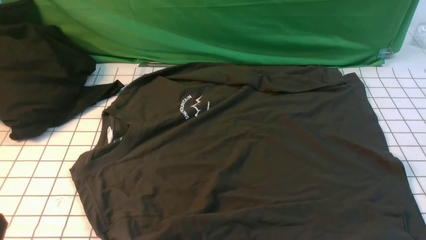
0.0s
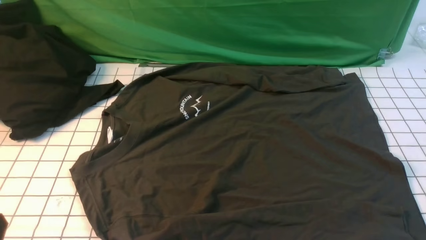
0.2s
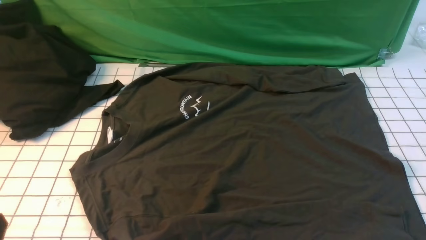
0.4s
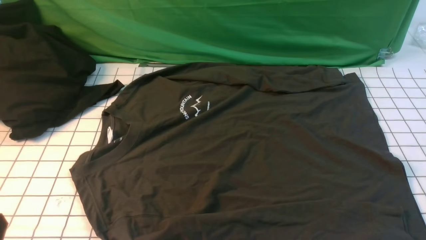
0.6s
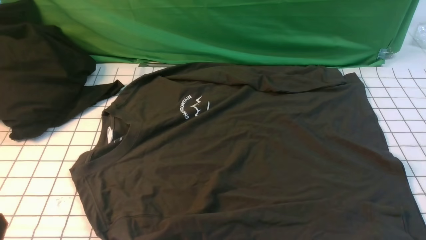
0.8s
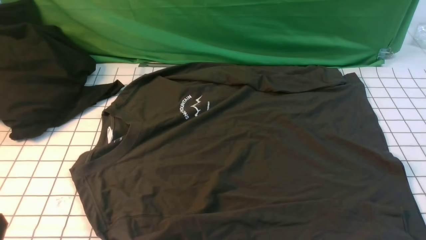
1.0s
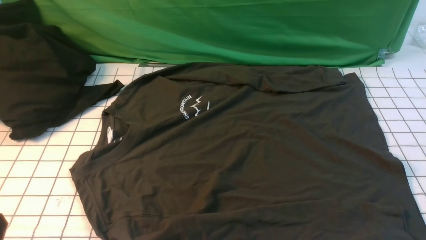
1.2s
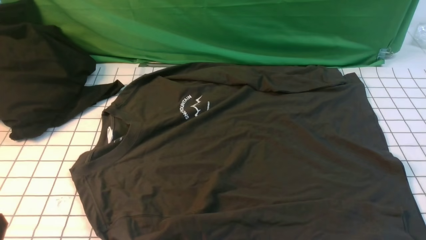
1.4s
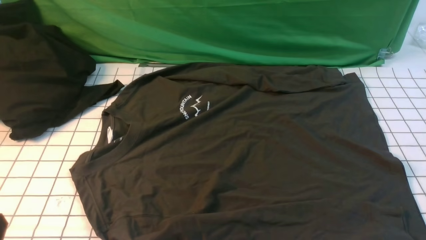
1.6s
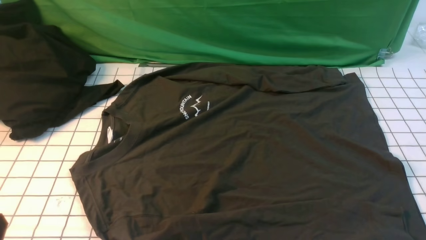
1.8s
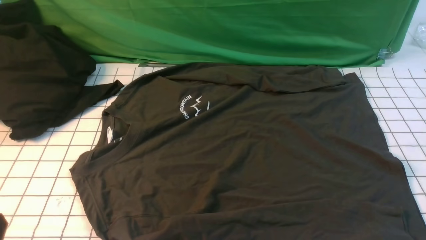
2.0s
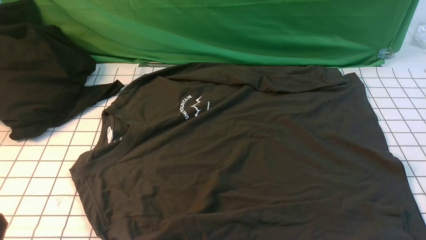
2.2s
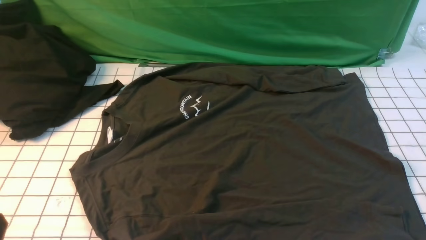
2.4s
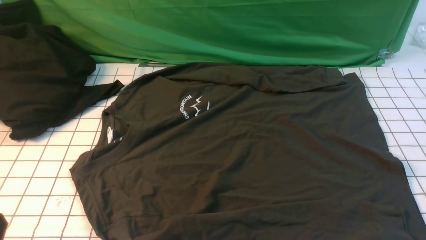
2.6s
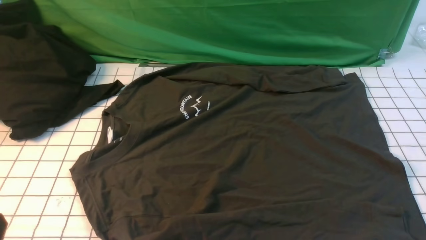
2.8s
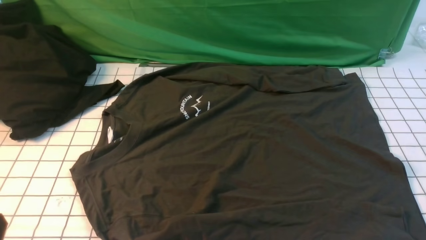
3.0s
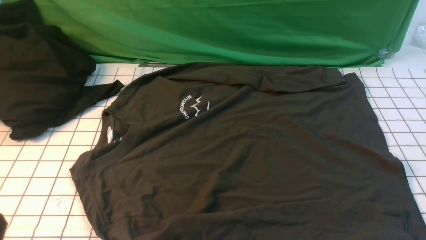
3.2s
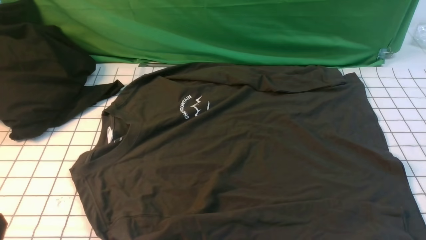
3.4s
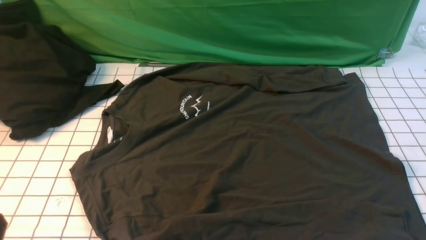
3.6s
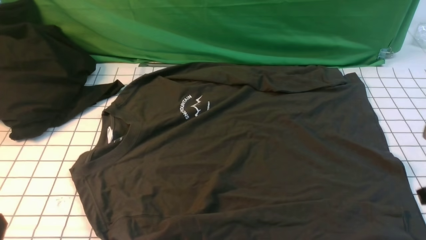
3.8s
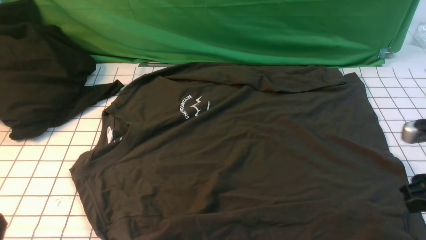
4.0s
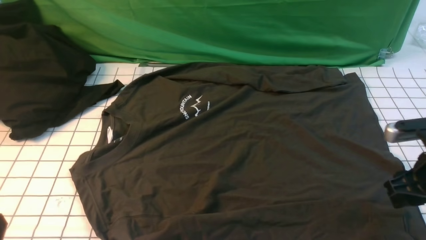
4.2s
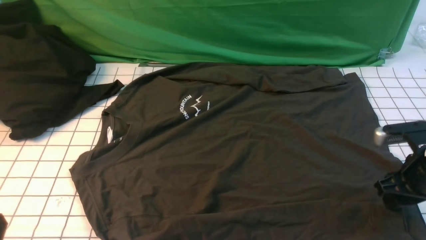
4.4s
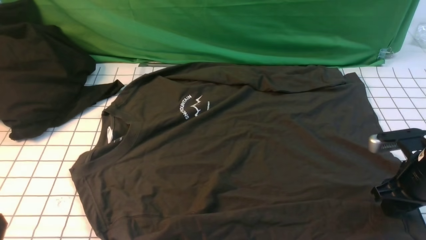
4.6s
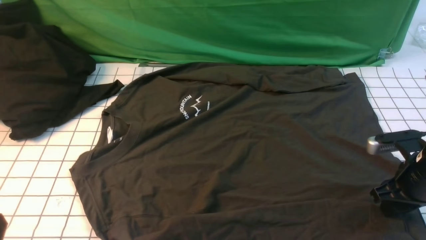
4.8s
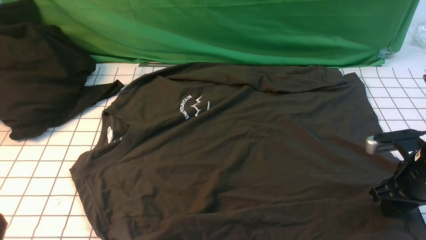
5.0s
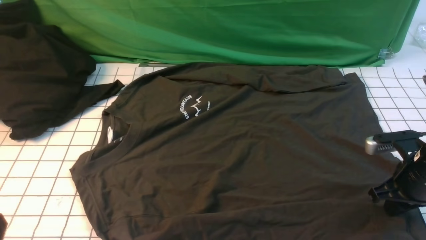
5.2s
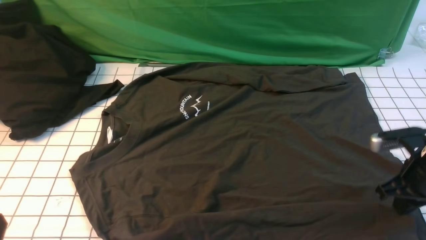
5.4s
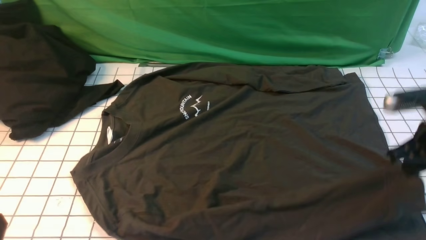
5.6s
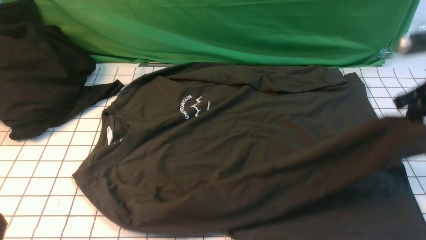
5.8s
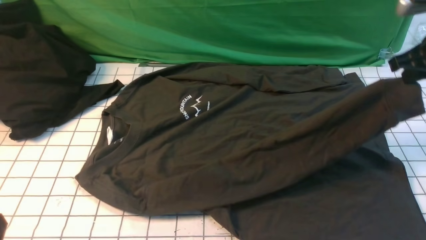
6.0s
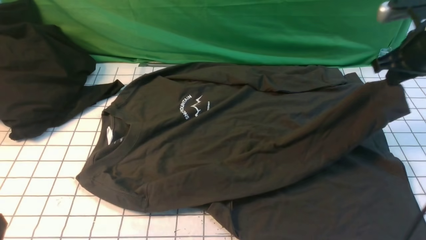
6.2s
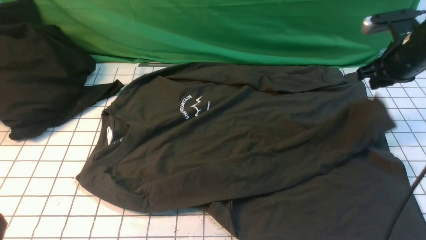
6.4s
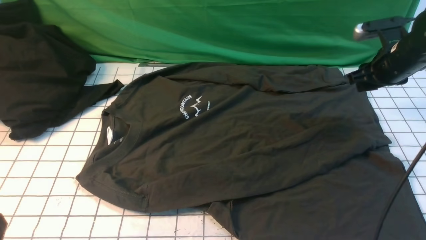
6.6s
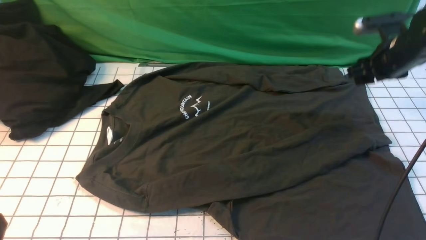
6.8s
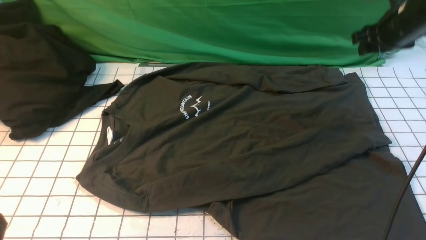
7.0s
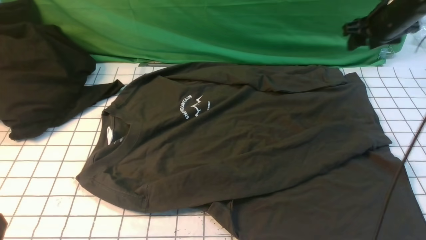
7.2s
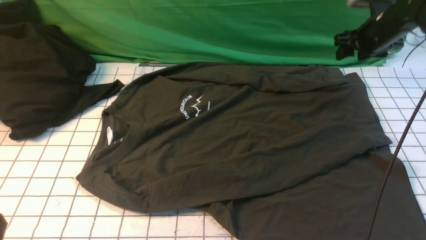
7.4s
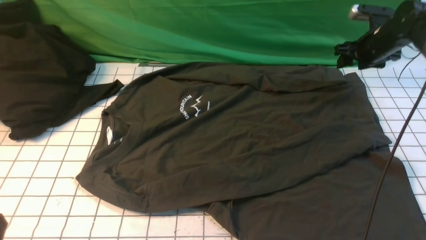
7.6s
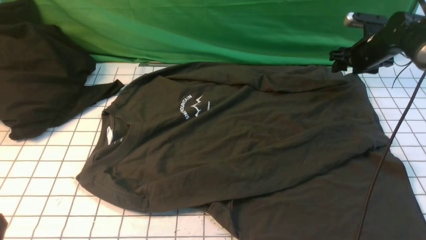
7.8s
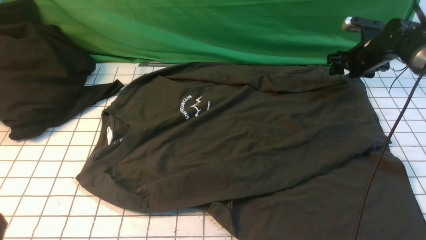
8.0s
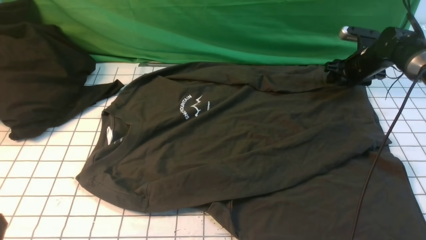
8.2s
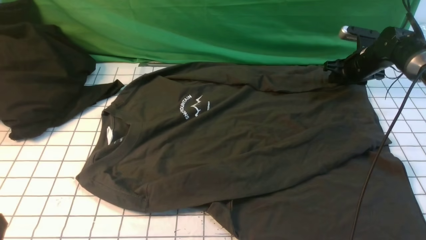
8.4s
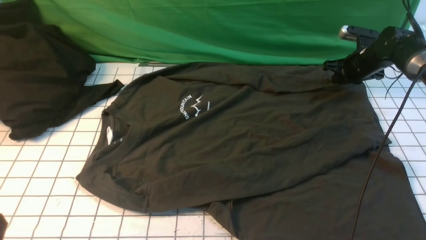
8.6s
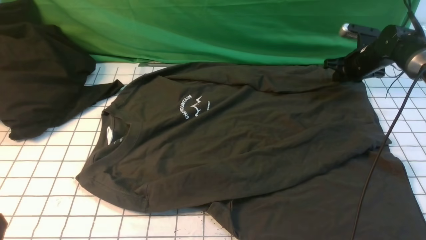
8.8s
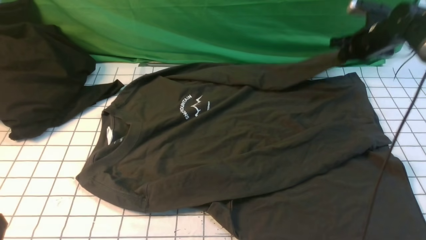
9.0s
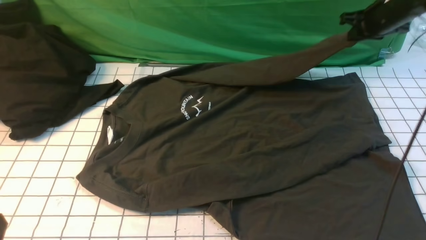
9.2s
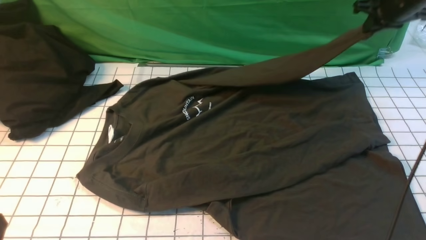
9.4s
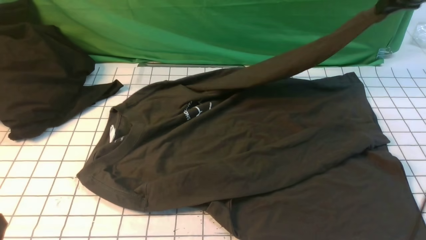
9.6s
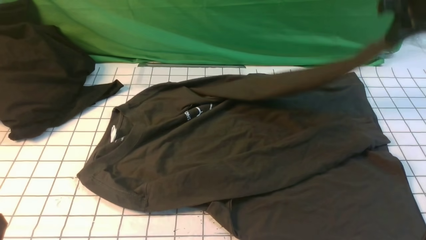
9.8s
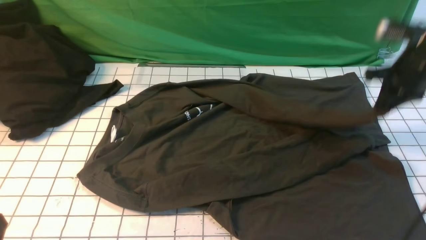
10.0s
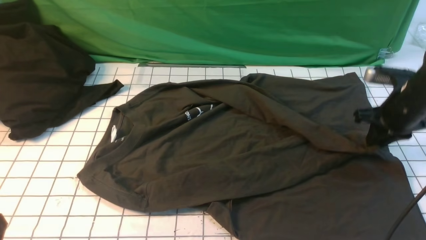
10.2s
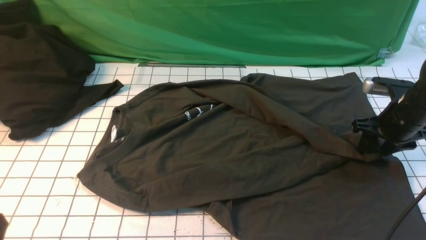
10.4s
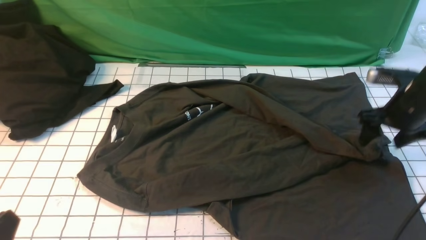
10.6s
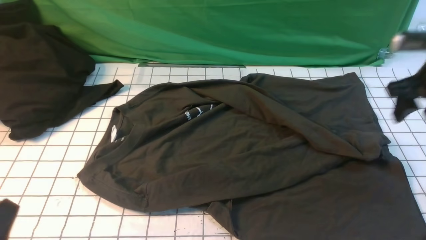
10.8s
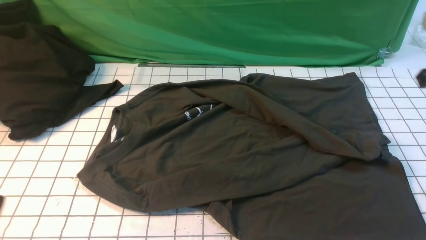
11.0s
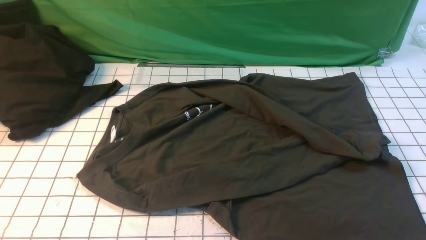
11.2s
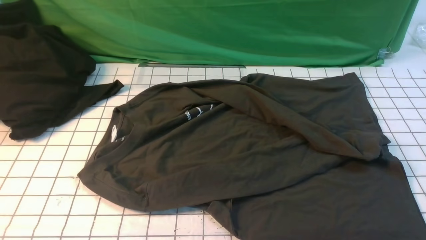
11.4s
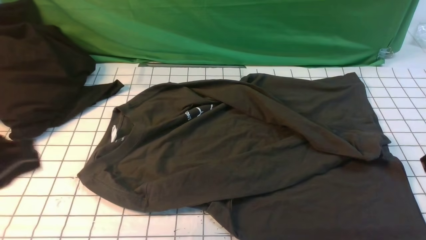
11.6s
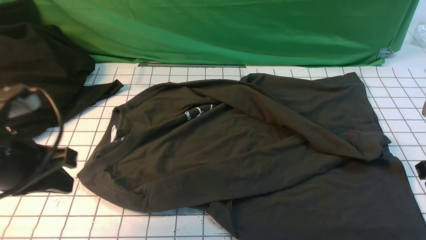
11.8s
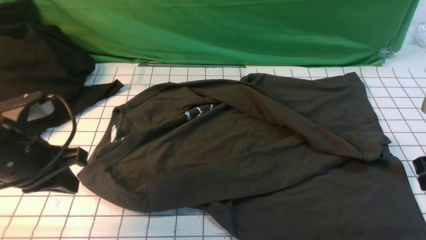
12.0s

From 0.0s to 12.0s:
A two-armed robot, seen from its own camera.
Step, from 0.0s to 5.2s: Use your right arm to clamp the cuff closest to him.
Step, from 5.4s to 6.4s: use the right arm to drag and place the cuff at thecentered position on the left edge of the fabric.
Step, from 6.6s to 8.6s: Use your right arm to clamp the cuff farthest to him.
Step, from 8.8s to 10.4s: use the right arm to drag and drop the cuff onto the cuffclosest to the right arm.
From 0.0s to 1.6s: Both grippers stay about where they are.
From 3.0s to 4.4s: The right gripper moves forward and downward, roughly 25 cm, and opens its fingers.
From 4.4s to 6.0s: The right gripper moves upward and forward, roughly 15 cm, and closes its fingers.
From 6.0s to 7.6s: The right gripper heads forward and downward, covering roughly 20 cm, and opens its fingers.
From 7.6s to 9.0s: The right gripper travels downward and back again, about 5 cm each way, and closes up.
From 9.0s to 10.4s: The right gripper is displaced backward by roughly 20 cm, and opens its fingers.
From 10.4s to 12.0s: The right gripper goes roughly 15 cm backward and upward, and closes and opens again, while the left gripper is displaced forward by some 20 cm.

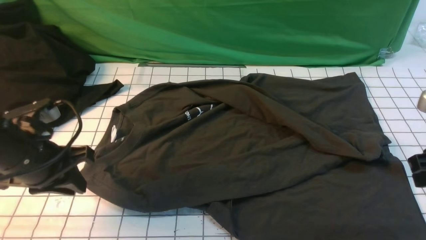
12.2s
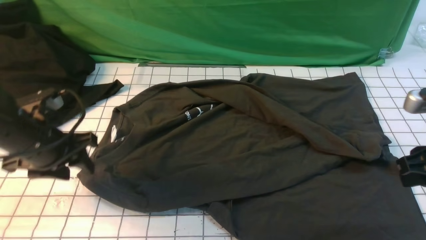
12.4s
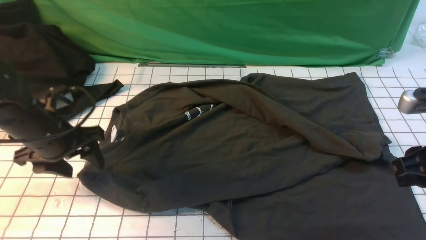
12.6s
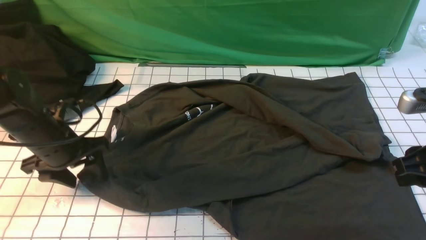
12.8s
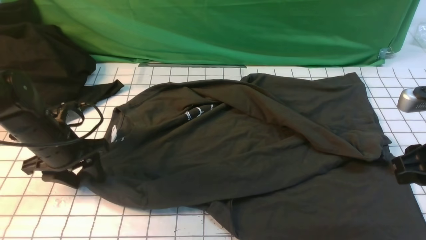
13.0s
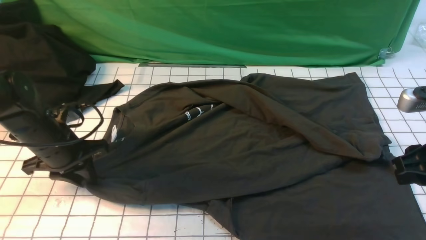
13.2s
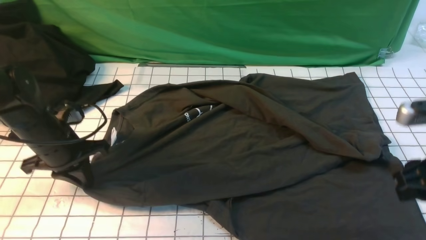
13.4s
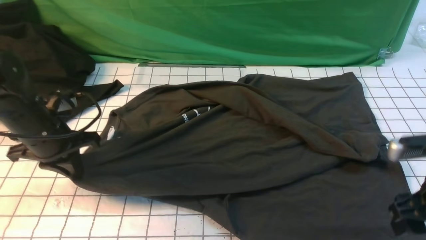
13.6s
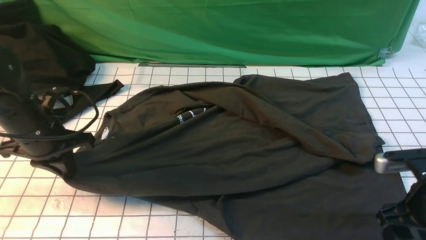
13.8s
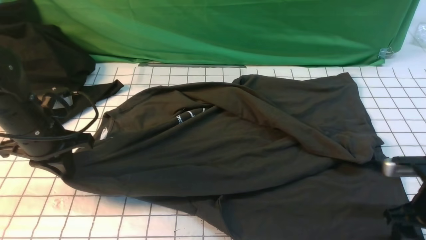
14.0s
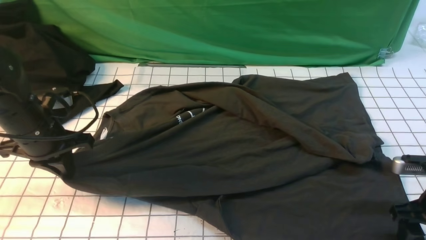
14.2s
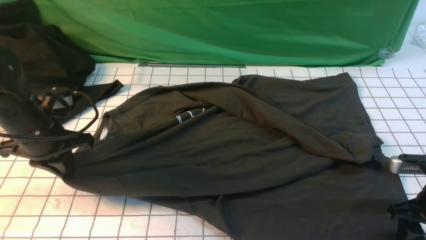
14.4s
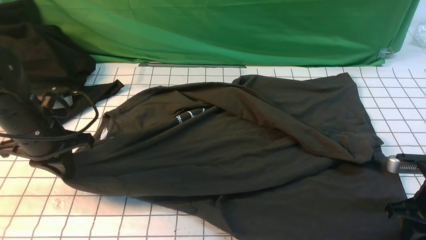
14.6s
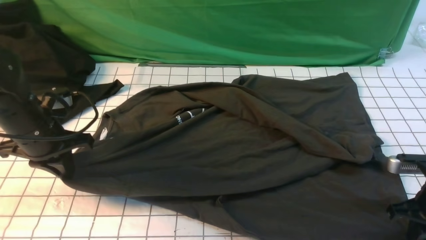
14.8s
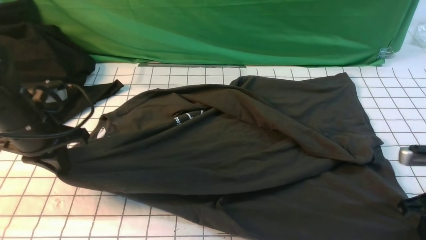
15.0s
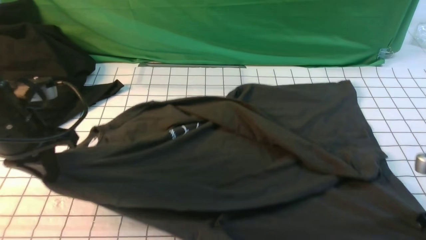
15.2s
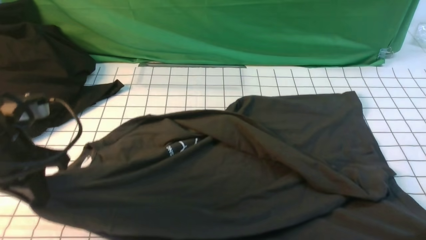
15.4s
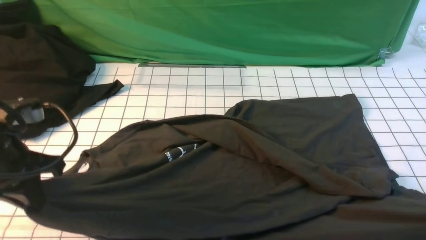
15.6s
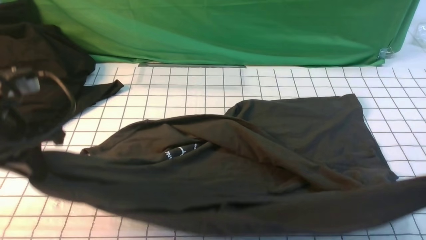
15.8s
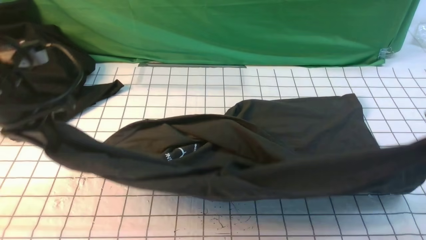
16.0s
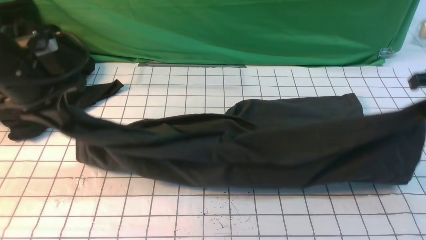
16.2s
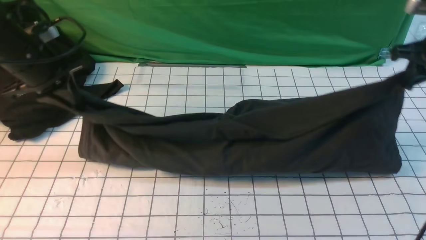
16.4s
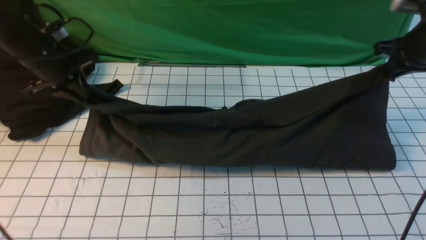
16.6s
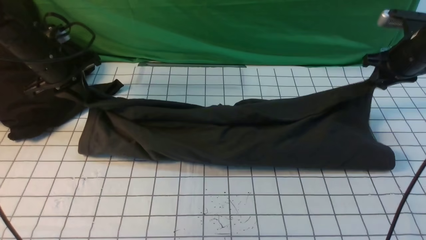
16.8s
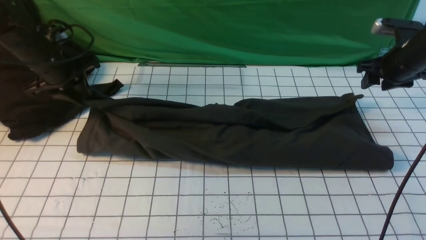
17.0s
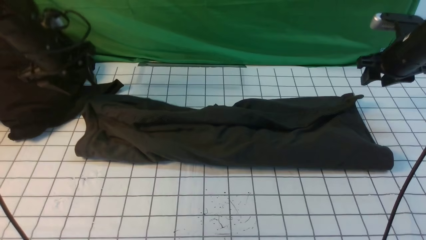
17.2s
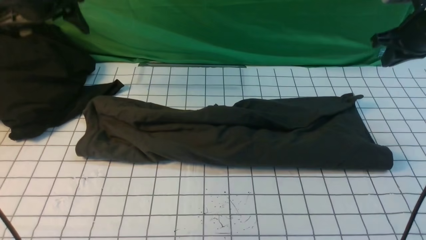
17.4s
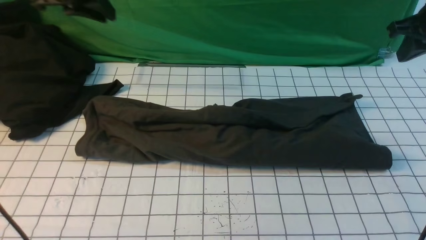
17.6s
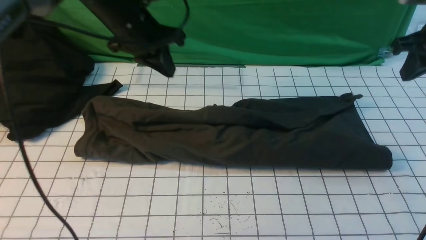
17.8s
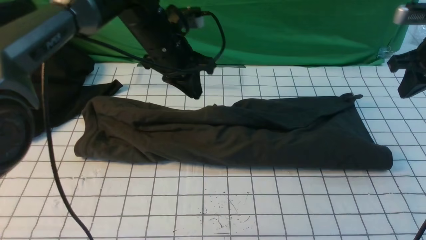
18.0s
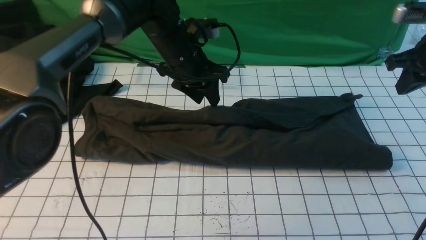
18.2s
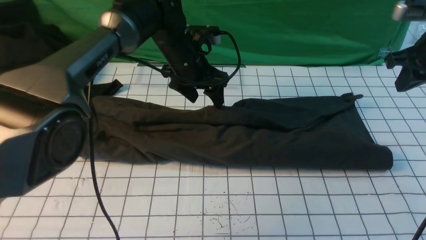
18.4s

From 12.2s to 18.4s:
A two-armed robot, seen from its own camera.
Step, from 12.2s to 14.6s: use both arms simultaneously to clamp the lower edge of the clothing fabric.
Step, from 14.8s to 17.2s: use both arms to drag the lower edge of the fabric forward and fold it over the upper edge.
From 12.2s to 13.8s: The right gripper heads downward, covering approximately 10 cm, and opens; the left gripper shifts roughly 5 cm forward, and opens and closes again.
From 13.8s to 15.4s: The left gripper travels backward and upward by some 10 cm. Meanwhile the right gripper goes about 10 cm upward and backward, and closes.
From 15.4s to 16.8s: The two grippers go approximately 25 cm forward. The right gripper opens.
From 16.8s to 18.4s: The left gripper travels to the right by some 25 cm, and opens, while the right gripper heads backward and upward, covering roughly 10 cm, and closes its fingers.
